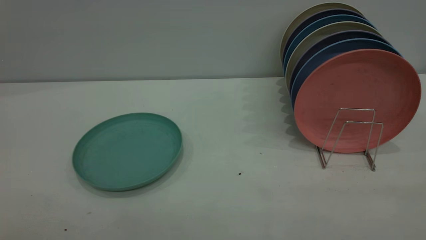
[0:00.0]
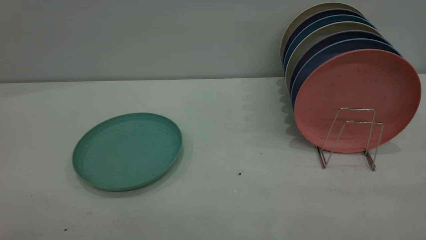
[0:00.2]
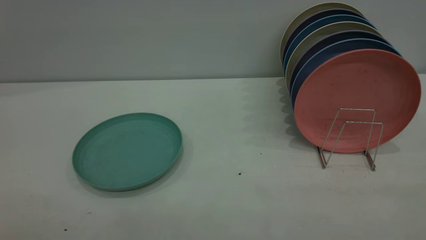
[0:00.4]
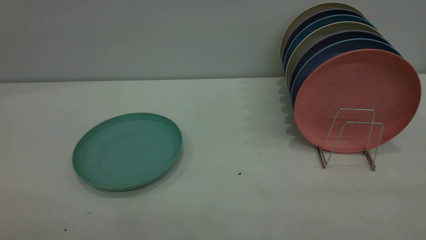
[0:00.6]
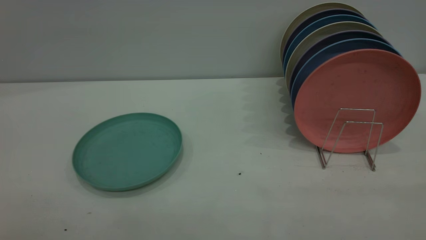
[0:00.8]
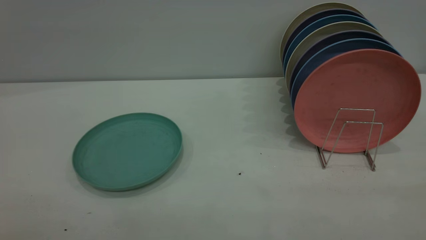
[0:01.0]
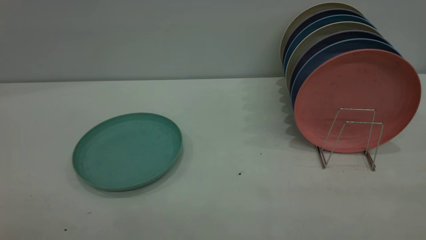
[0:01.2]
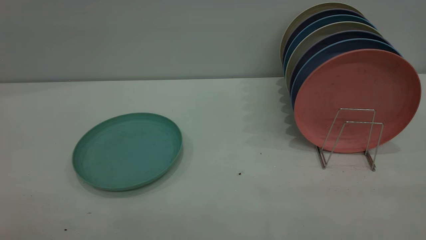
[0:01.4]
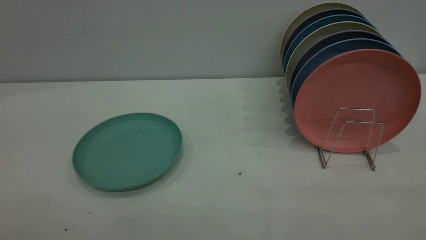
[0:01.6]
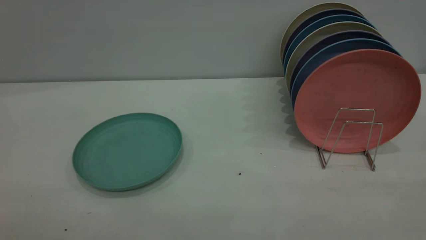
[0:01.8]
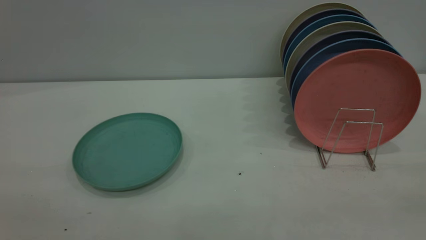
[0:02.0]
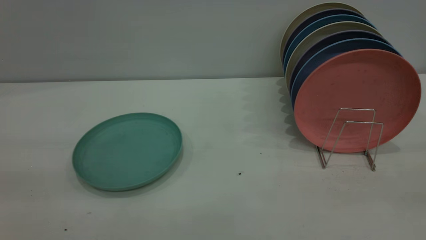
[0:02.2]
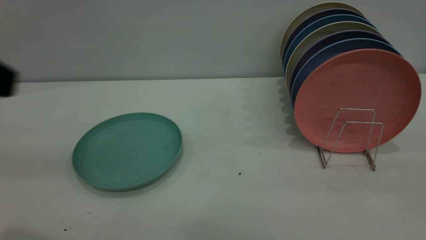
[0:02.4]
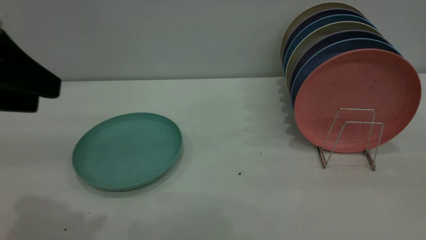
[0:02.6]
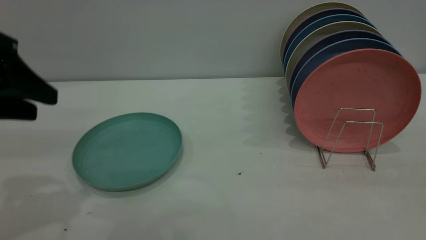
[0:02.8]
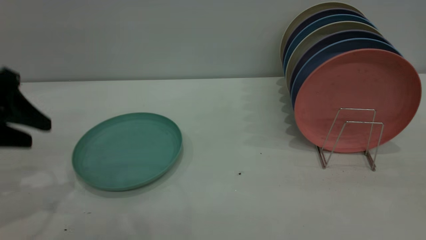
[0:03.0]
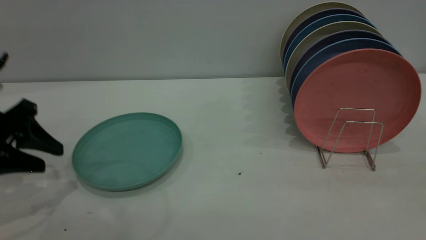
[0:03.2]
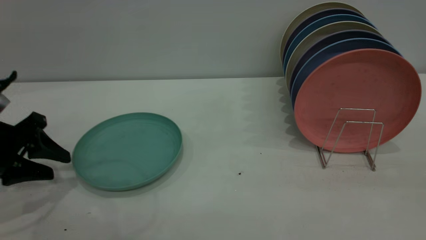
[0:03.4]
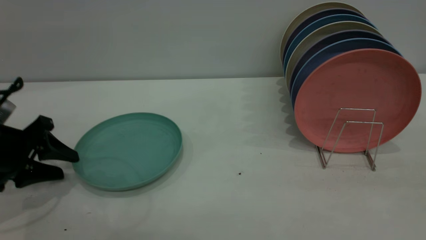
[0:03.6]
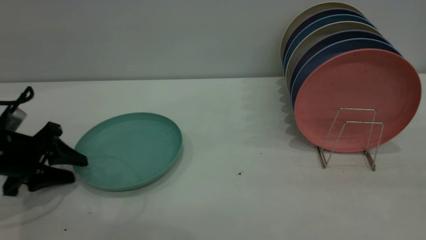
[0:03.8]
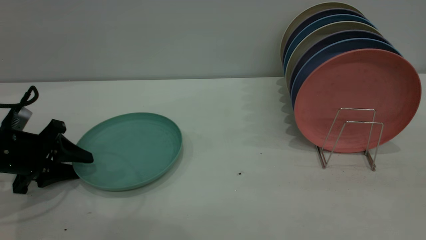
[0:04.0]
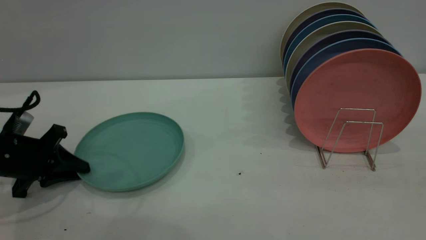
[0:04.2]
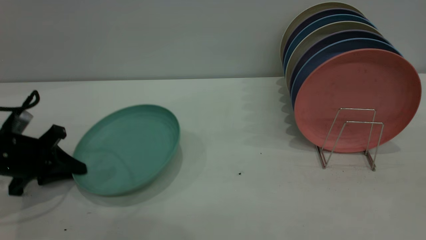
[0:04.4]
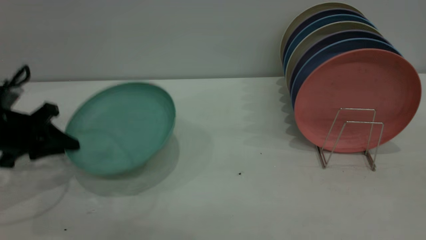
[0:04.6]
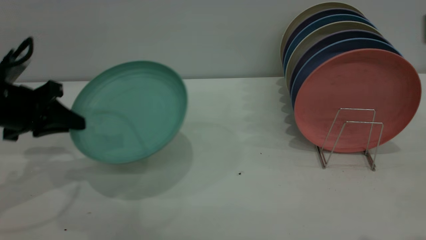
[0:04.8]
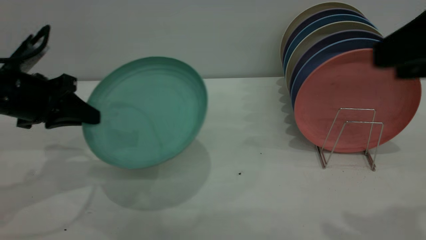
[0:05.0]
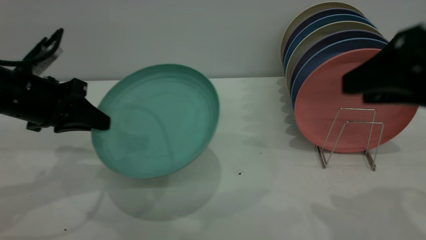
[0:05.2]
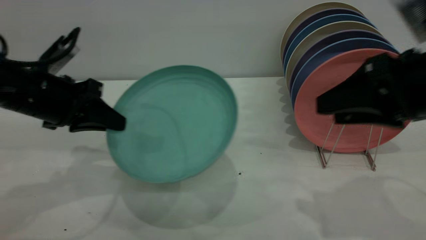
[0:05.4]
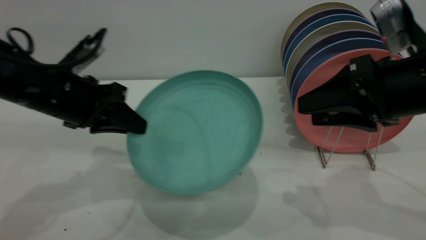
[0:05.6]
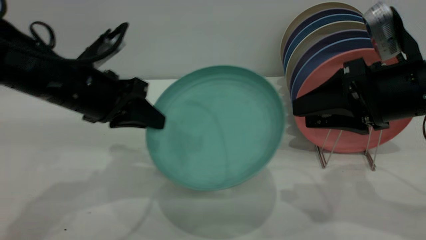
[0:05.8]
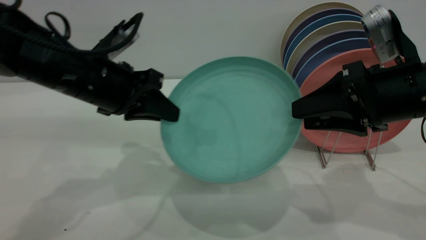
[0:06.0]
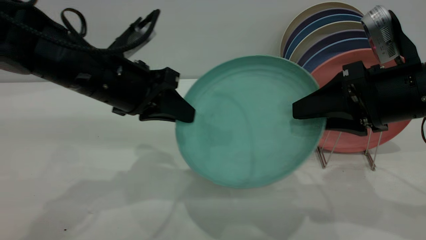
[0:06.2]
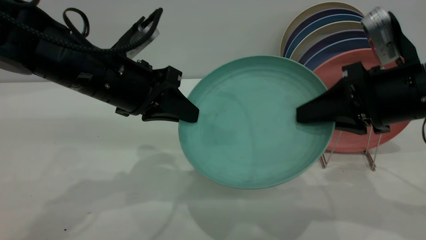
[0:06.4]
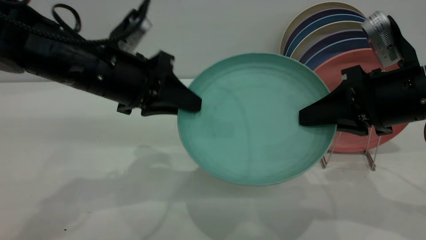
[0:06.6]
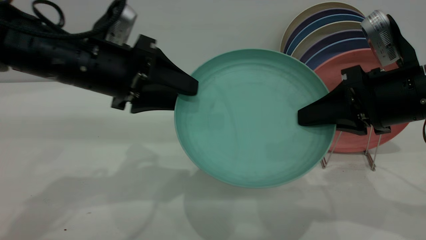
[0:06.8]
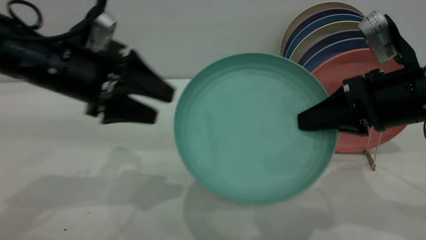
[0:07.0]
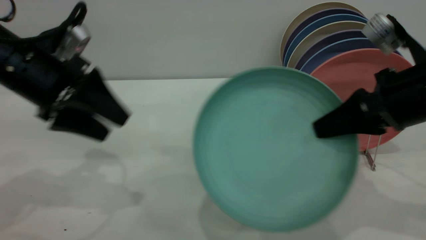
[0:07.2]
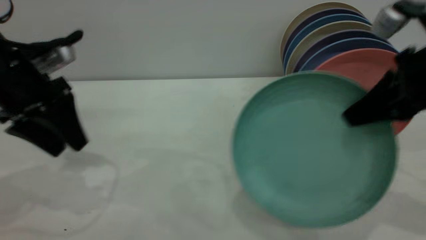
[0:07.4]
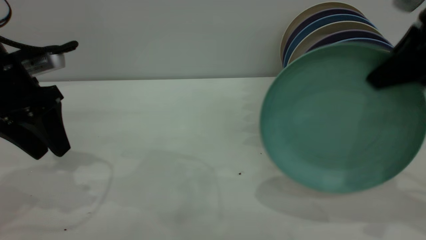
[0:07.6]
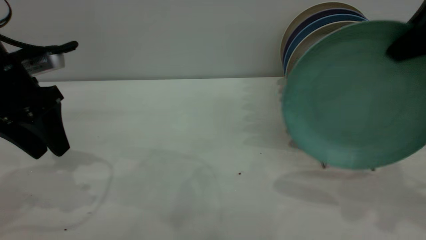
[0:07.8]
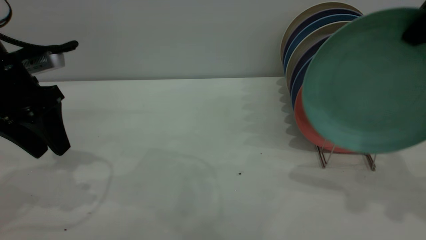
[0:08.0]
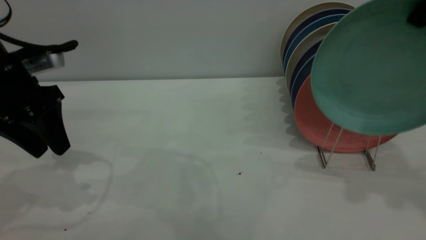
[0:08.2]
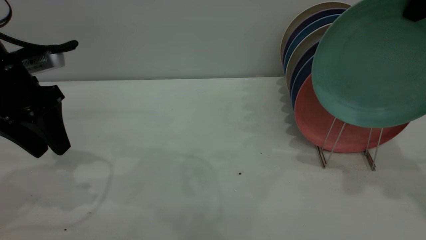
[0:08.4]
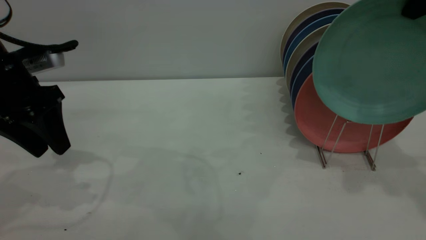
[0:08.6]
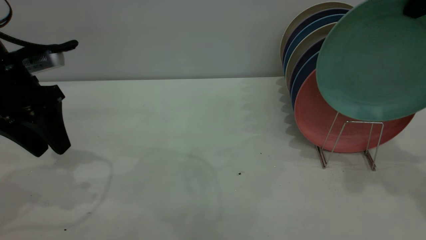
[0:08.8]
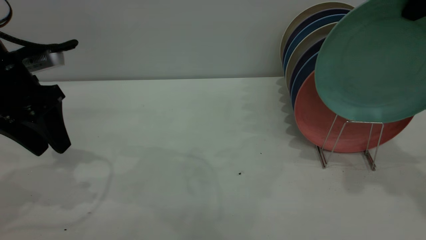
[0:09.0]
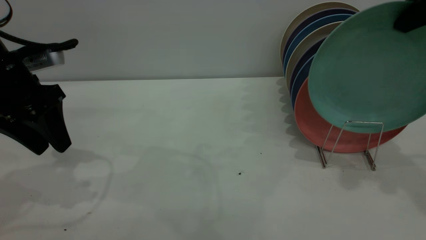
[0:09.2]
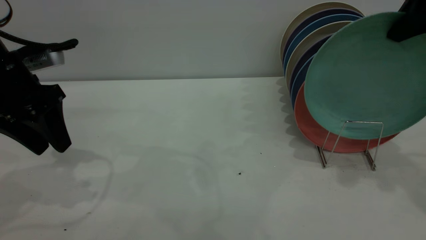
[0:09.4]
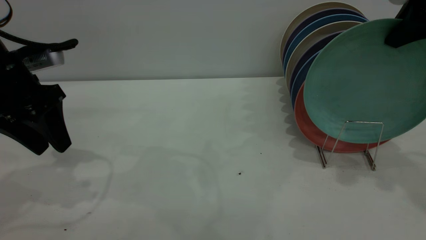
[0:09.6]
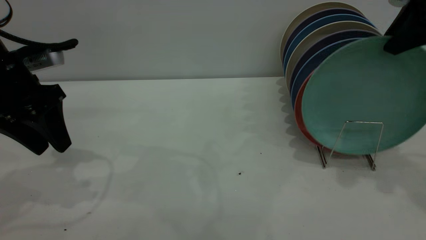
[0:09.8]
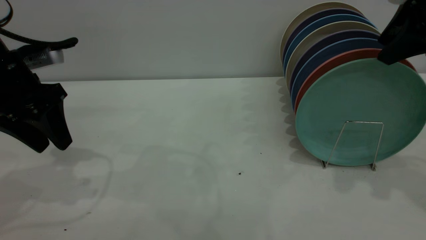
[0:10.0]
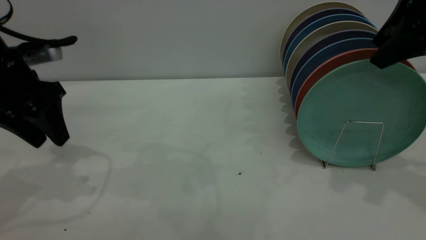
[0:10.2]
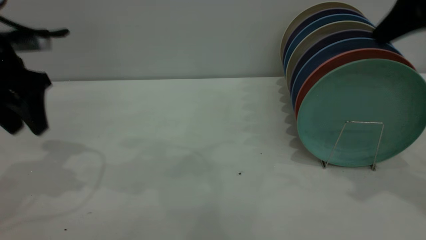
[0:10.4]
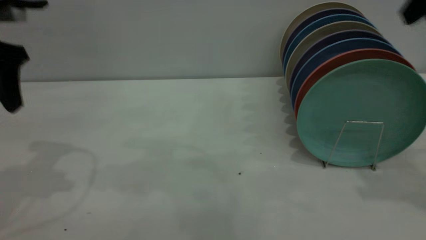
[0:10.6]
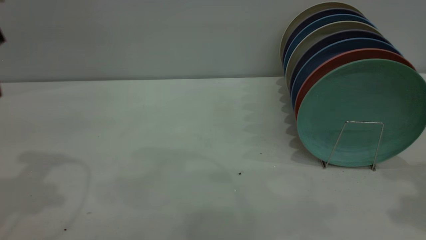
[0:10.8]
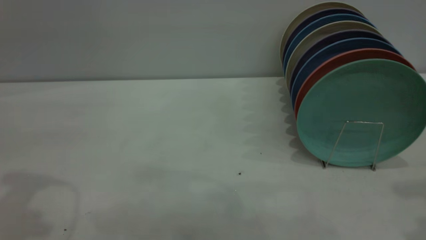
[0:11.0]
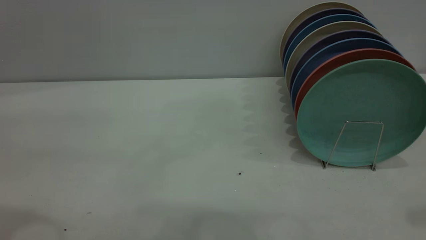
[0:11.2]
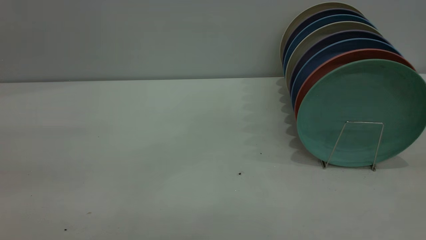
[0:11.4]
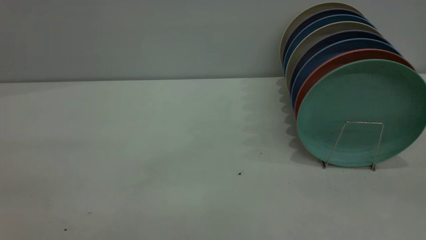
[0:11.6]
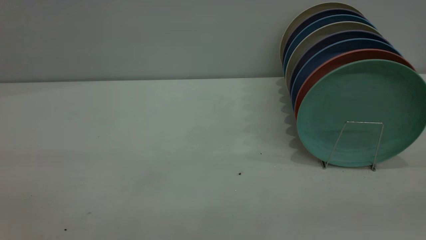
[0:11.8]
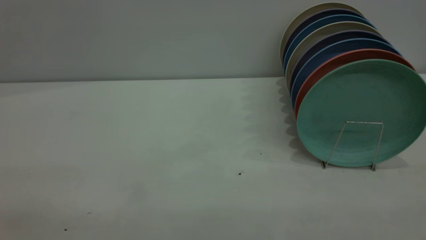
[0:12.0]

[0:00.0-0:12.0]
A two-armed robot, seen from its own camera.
Task of the whole recording: the left gripper grasp the green plate, the left gripper pass the green plate to the right gripper, and the right gripper place the green plate on the plate rack.
Step, 0:00.0 to 0:05.2: Pick up the plate with the left gripper.
Step, 0:05.4 to 0:07.0: Pass the plate from the left gripper to the right gripper.
Step, 0:07.2 to 0:10.4: Place the plate on the shelf.
0:00.0 to 0:01.6: Both grippers stay about where they are.
0:01.6 to 0:03.0: The left gripper travels forward and downward by about 35 cm.
0:03.0 to 0:04.4: The left gripper moves downward, about 10 cm, and closes.
0:04.4 to 0:06.0: The right gripper goes roughly 25 cm forward and downward, while the left gripper moves to the right and upward, about 20 cm.
0:06.0 to 0:07.6: The left gripper goes approximately 10 cm to the left, and opens. The right gripper heads upward, covering about 10 cm, and closes up.
0:07.6 to 0:09.0: The right gripper goes about 10 cm upward and forward.
0:09.0 to 0:10.4: The right gripper opens its fingers.
0:10.4 to 0:12.0: The left gripper is displaced backward and upward by about 35 cm; the right gripper is displaced backward by approximately 30 cm.

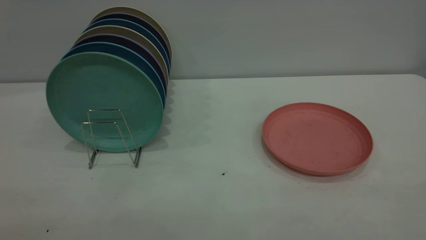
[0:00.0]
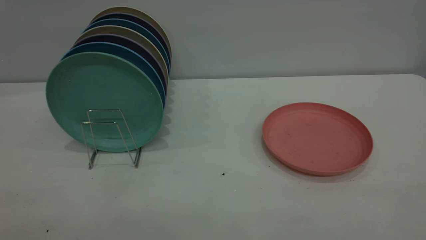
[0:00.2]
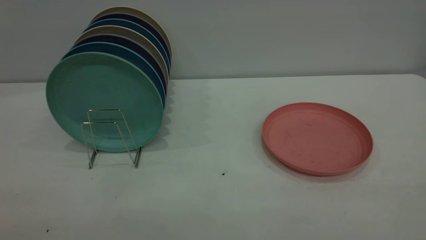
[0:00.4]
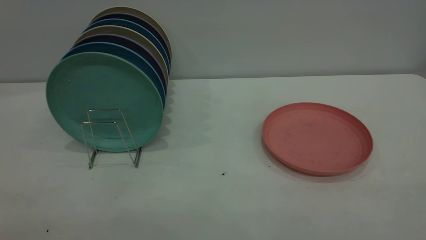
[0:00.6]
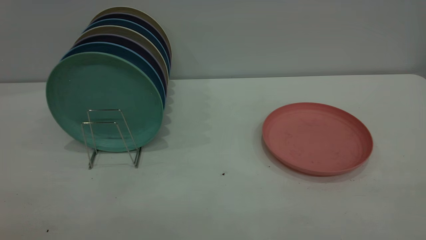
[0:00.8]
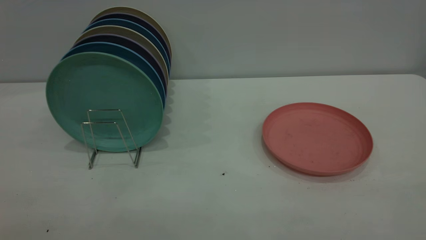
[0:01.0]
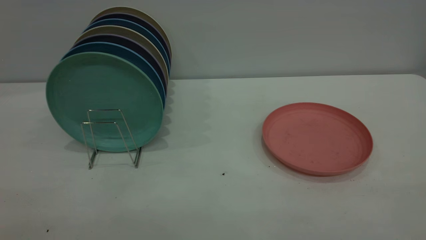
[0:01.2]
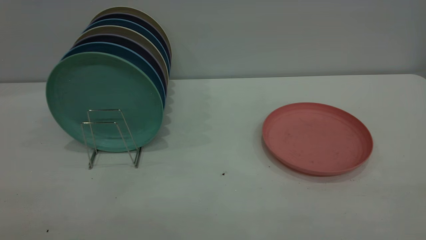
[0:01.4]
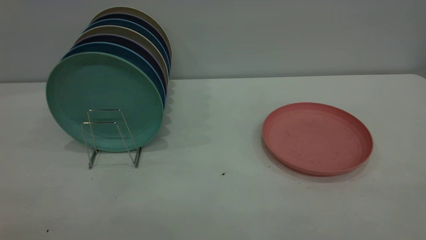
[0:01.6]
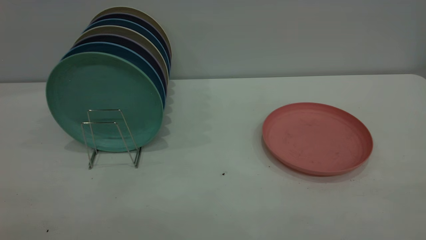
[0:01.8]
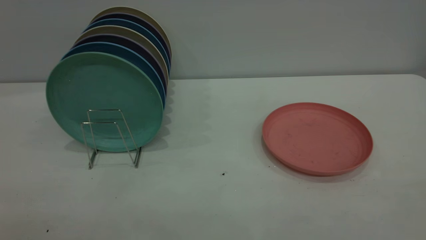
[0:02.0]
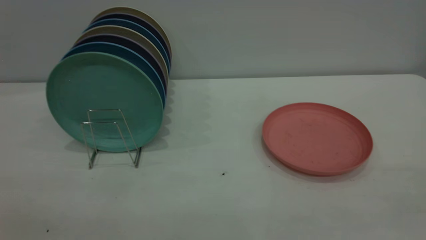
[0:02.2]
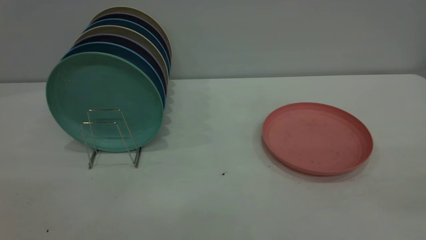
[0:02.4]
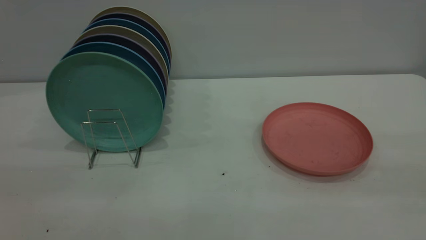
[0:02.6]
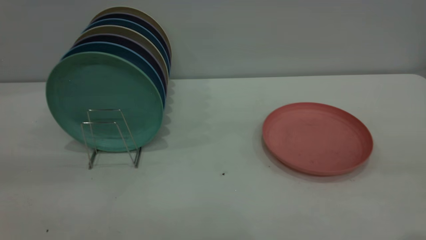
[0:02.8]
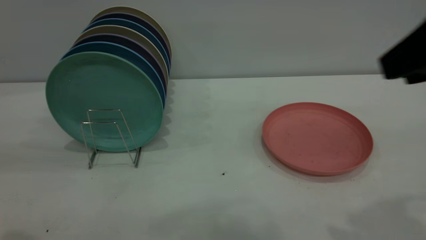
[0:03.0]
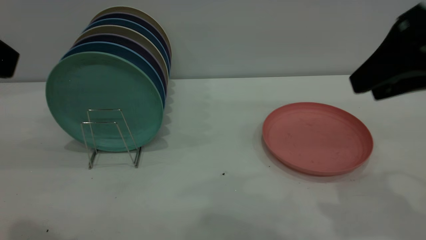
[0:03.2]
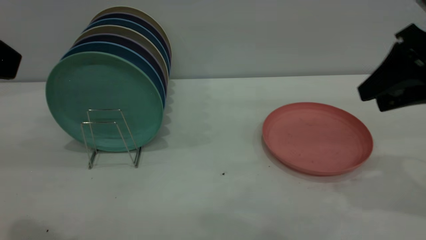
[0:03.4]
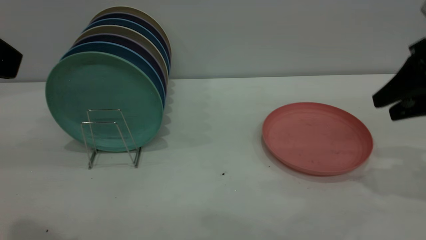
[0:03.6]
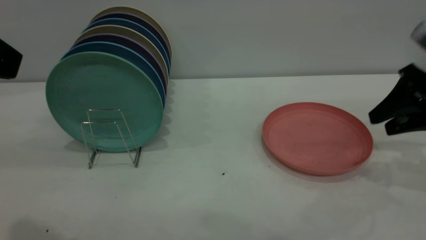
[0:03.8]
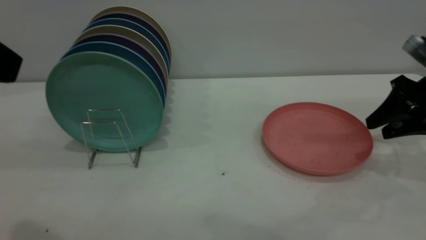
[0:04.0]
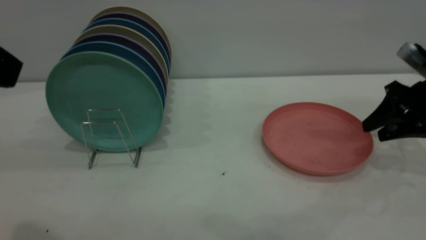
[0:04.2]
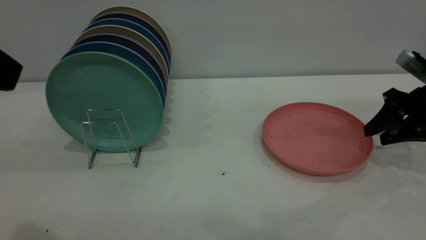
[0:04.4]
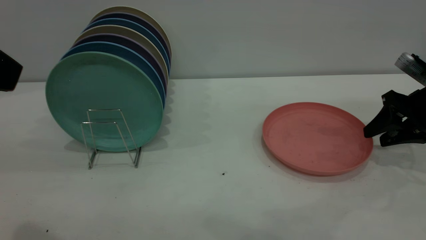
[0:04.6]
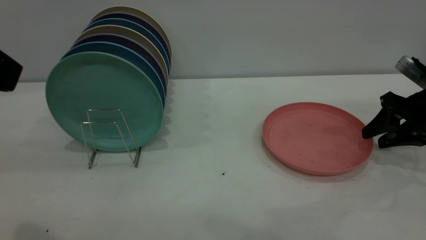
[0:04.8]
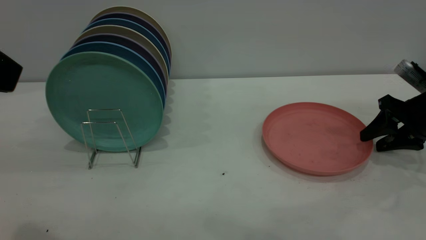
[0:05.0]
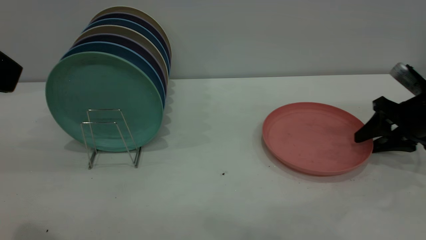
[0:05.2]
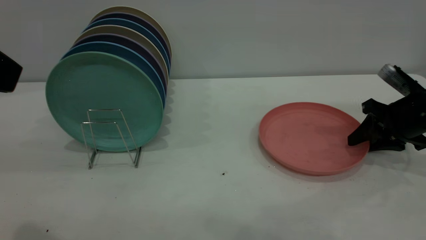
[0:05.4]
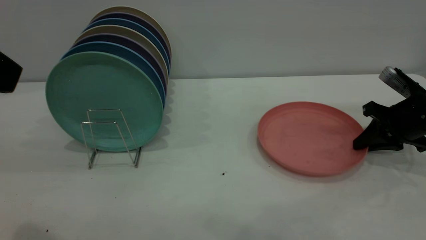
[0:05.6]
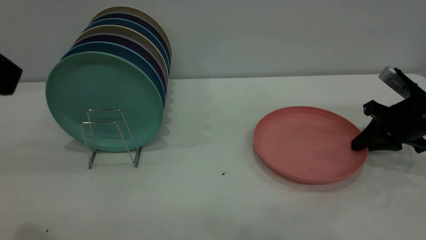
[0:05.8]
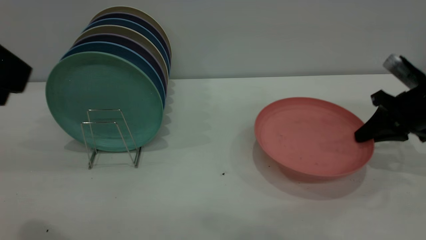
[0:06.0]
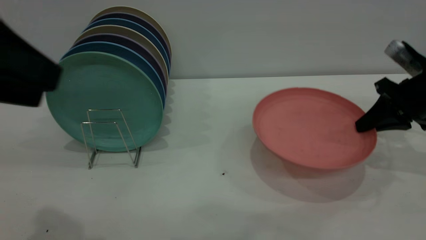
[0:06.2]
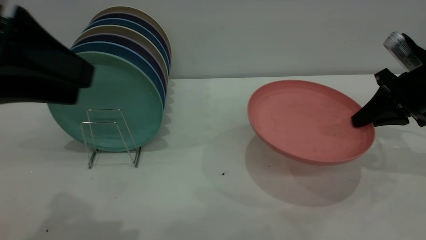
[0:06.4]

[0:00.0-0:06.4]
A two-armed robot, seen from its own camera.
Task of the whole recording: the right gripper grasp the pink plate, the right gripper pass the pink plate to the left gripper, and the left gripper place the pink plate on the plate rack.
0:00.0 to 0:01.6: Both grippers stay put.
0:01.6 to 0:03.2: The right gripper is displaced forward by roughly 30 cm.
0:03.2 to 0:04.8: The right gripper shifts roughly 25 cm downward, forward and to the right.
0:04.8 to 0:06.4: The left gripper goes roughly 10 cm downward and forward; the right gripper shifts by about 5 cm, and closes.
